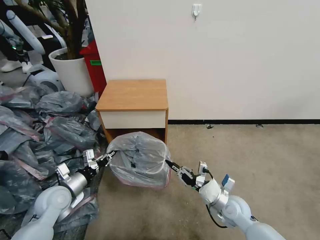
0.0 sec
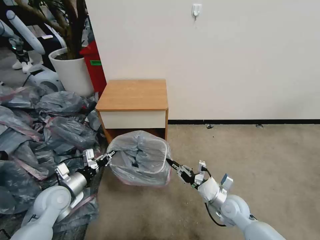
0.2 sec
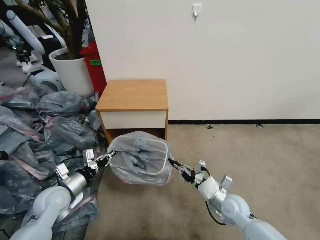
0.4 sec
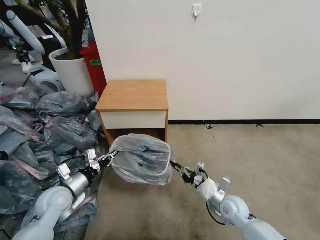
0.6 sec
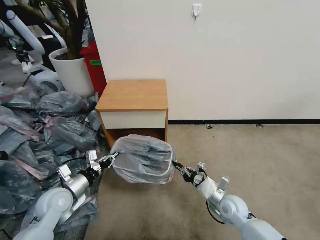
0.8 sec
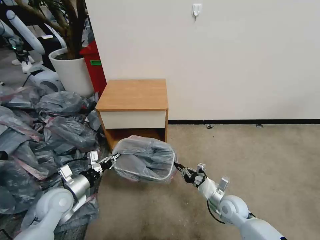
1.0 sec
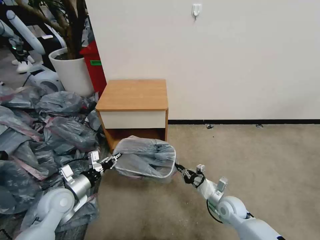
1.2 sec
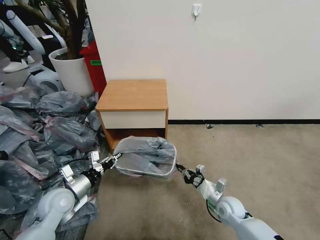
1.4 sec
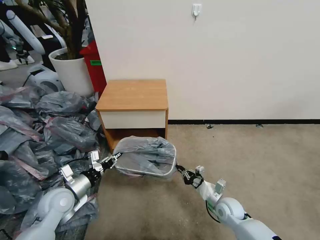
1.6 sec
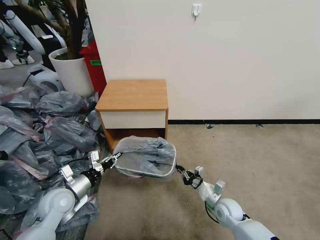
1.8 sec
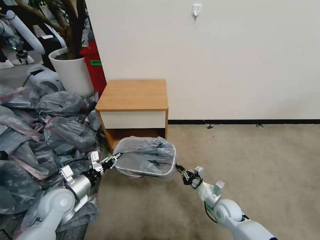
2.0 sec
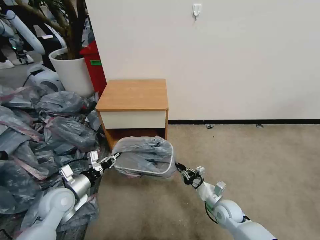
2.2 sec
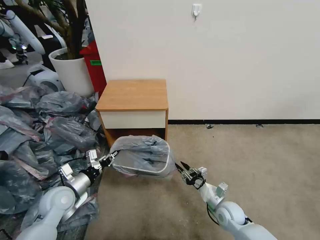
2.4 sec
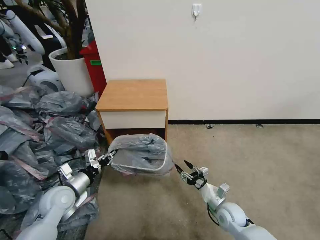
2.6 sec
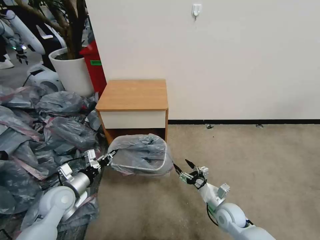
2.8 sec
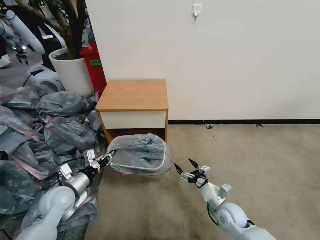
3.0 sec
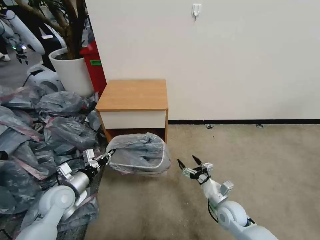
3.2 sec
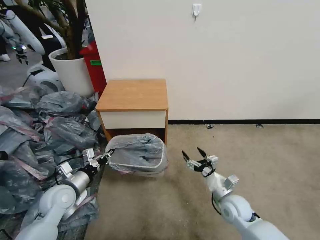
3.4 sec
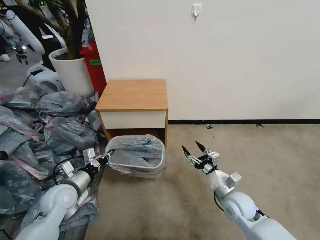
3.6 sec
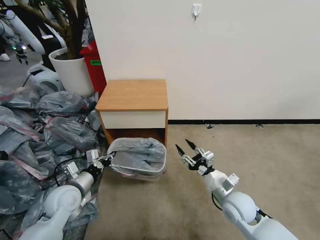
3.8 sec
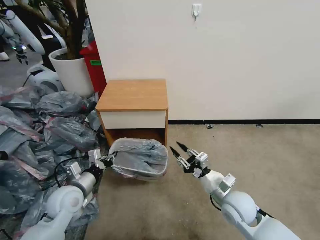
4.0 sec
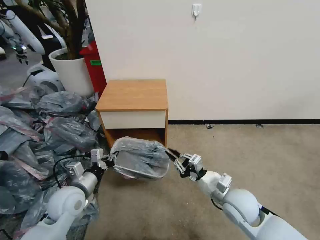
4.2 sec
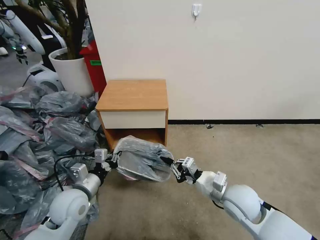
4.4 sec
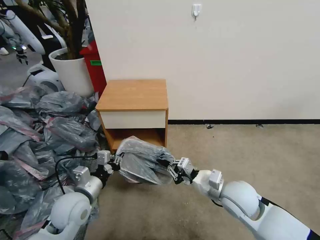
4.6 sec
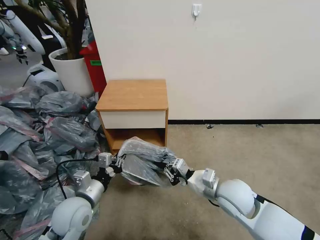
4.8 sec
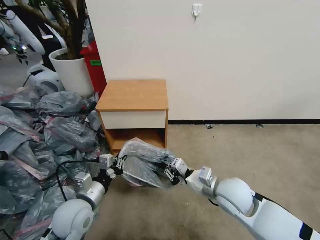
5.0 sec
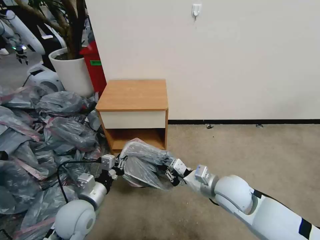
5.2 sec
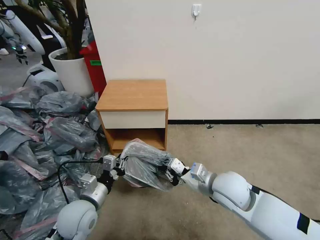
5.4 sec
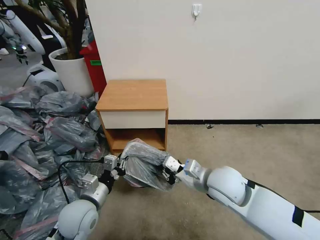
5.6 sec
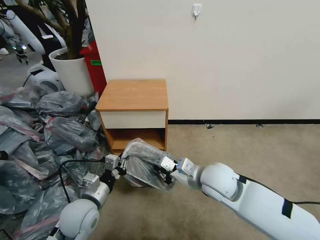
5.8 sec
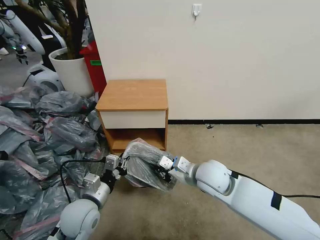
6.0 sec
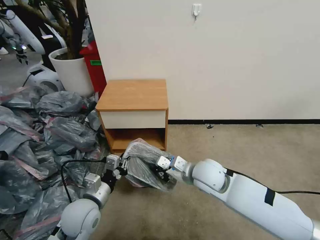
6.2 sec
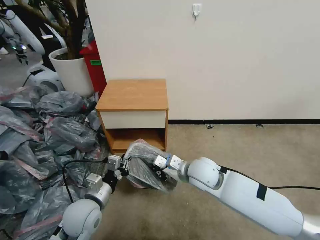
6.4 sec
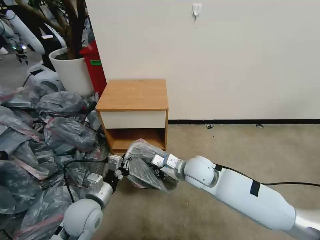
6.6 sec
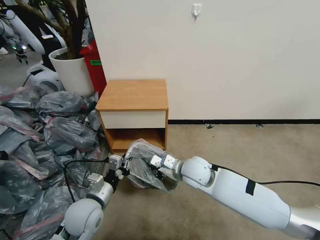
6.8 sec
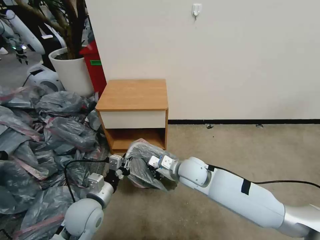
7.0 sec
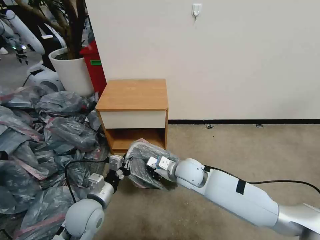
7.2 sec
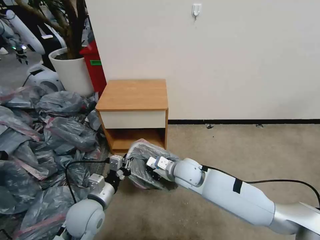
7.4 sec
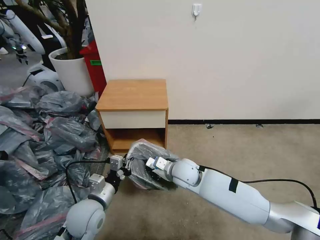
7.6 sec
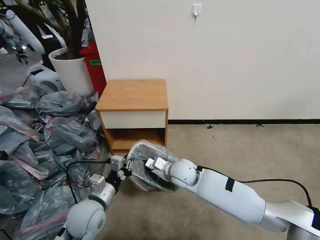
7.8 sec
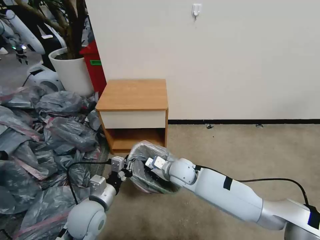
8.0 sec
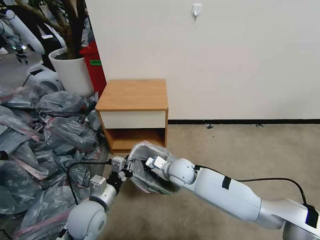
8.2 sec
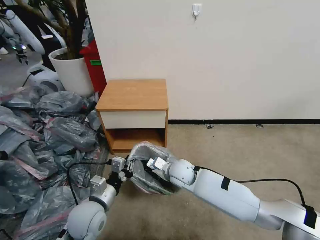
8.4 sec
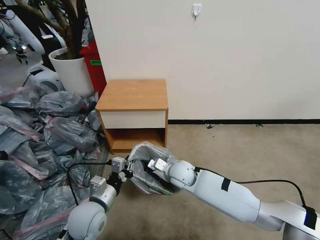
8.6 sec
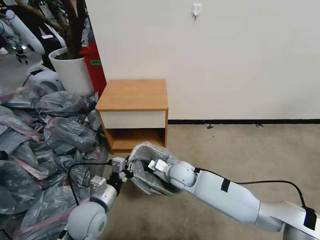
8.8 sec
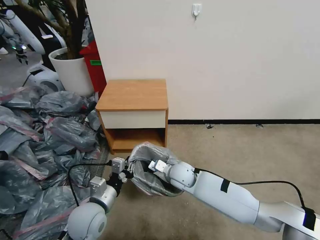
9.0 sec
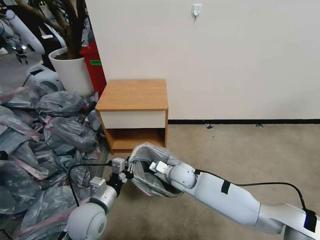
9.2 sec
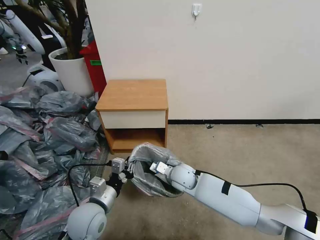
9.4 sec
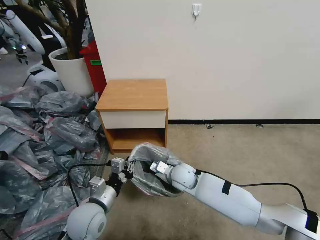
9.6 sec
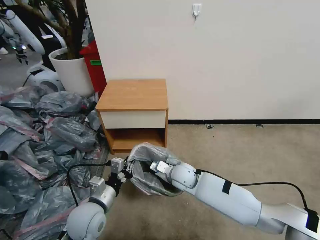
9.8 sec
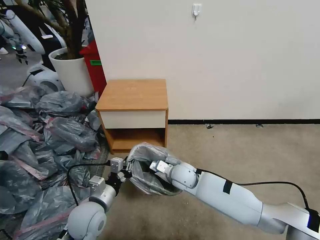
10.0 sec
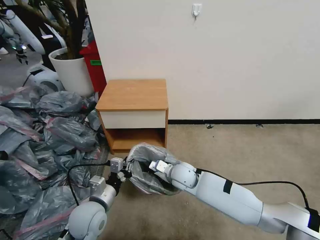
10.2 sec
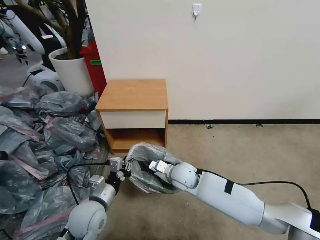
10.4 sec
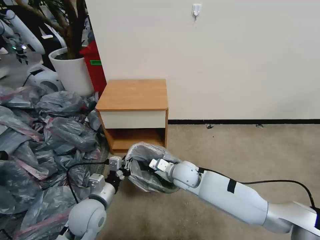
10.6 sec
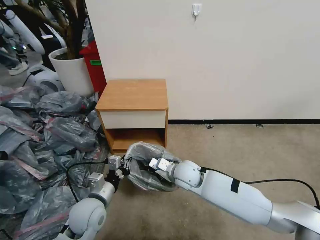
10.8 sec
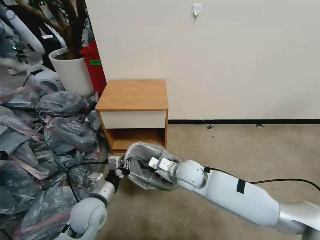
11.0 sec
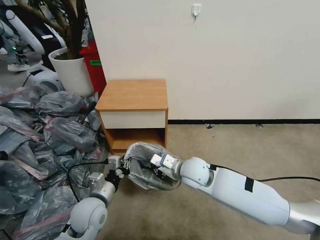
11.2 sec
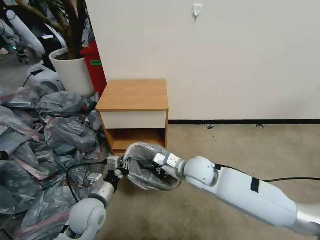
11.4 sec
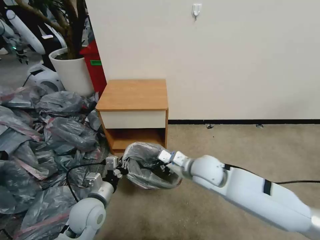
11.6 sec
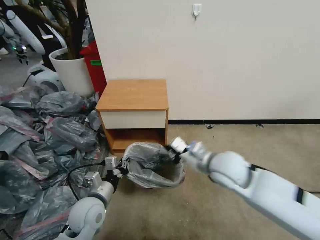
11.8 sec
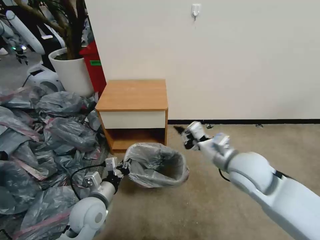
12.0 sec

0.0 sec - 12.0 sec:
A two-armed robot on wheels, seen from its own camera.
Task of the whole recording: Pick up the garbage bag from the table and place it over the trash can.
0.0 sec - 1.6 sec: The right gripper travels downward by approximately 5 cm.
1.6 sec - 3.0 sec: The right gripper opens up.
3.0 sec - 4.4 sec: The right gripper moves upward, about 15 cm, and closes its fingers, while the left gripper goes about 5 cm to the right.
4.4 sec - 6.0 sec: The right gripper goes some 10 cm to the left and forward.
6.0 sec - 7.6 sec: The right gripper heads downward and to the left, covering about 10 cm.
7.6 sec - 9.0 sec: There are only small adjustments of the grippers.
9.0 sec - 10.4 sec: The two grippers keep their place.
10.4 sec - 12.0 sec: The right gripper is displaced upward and to the right by about 20 cm.

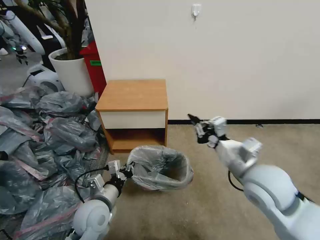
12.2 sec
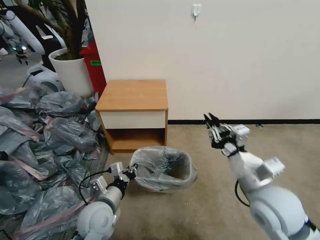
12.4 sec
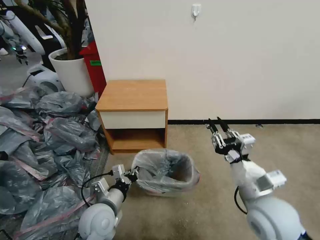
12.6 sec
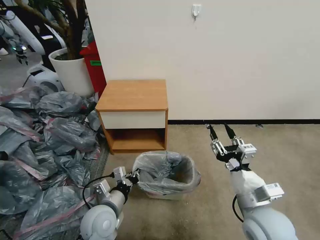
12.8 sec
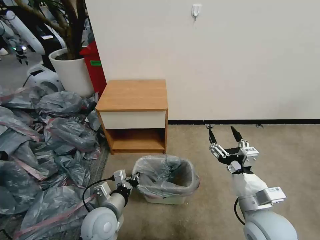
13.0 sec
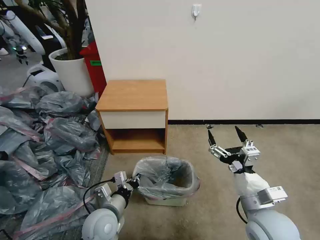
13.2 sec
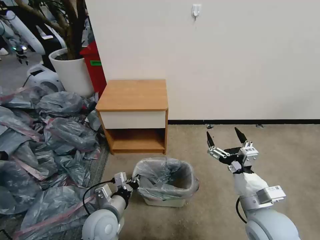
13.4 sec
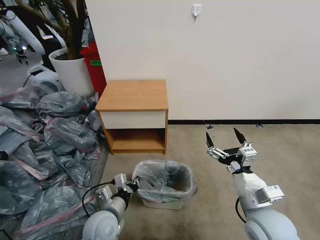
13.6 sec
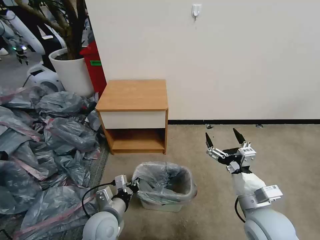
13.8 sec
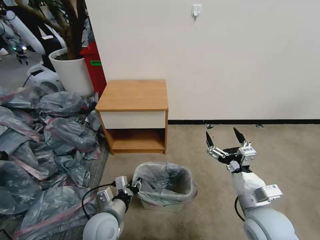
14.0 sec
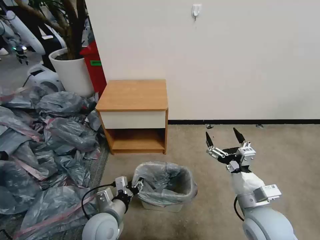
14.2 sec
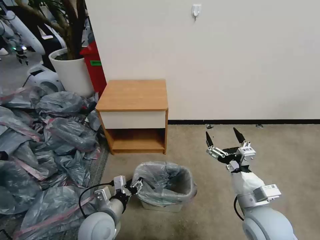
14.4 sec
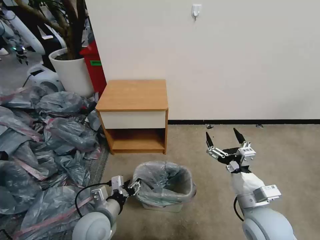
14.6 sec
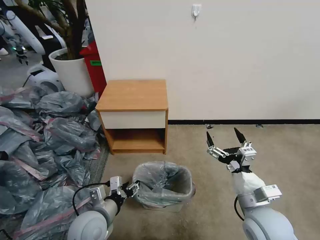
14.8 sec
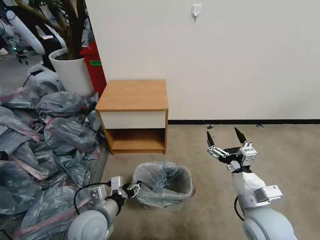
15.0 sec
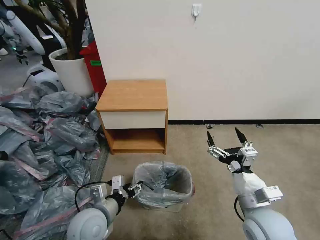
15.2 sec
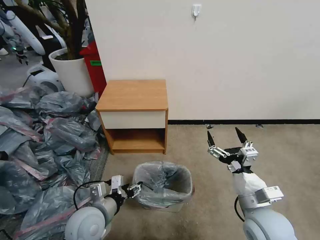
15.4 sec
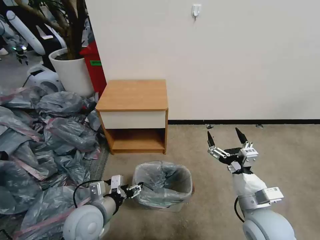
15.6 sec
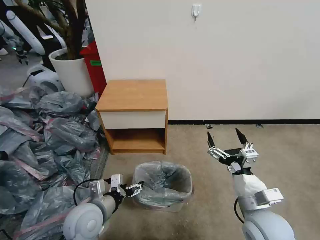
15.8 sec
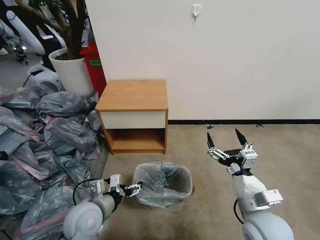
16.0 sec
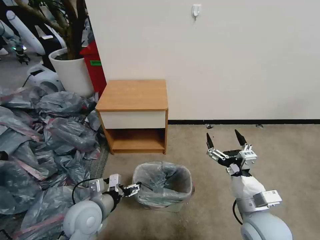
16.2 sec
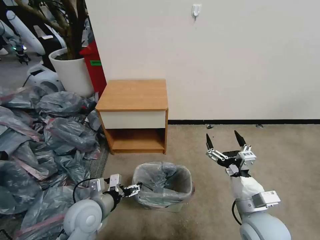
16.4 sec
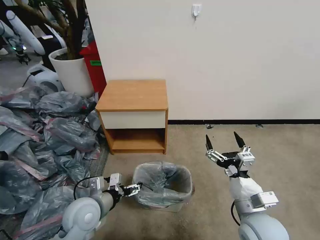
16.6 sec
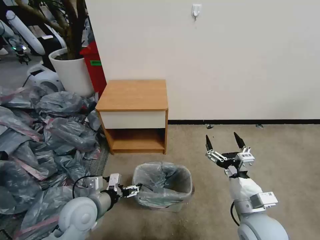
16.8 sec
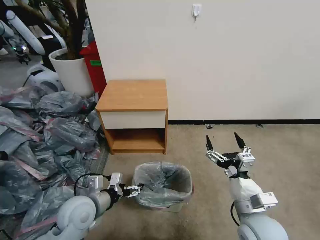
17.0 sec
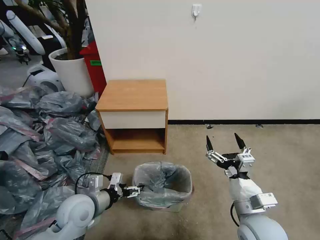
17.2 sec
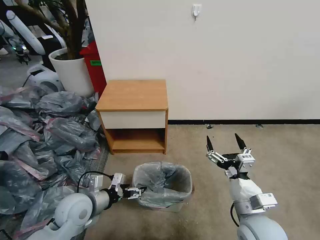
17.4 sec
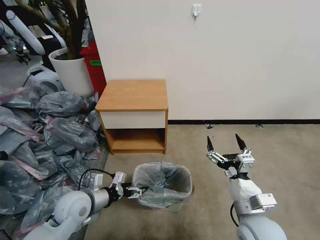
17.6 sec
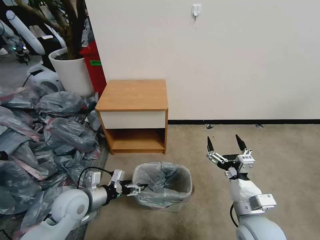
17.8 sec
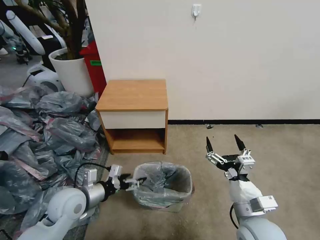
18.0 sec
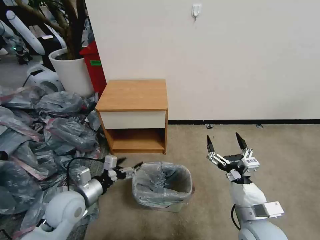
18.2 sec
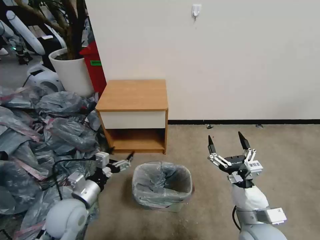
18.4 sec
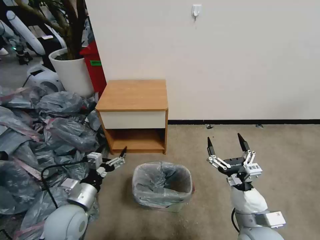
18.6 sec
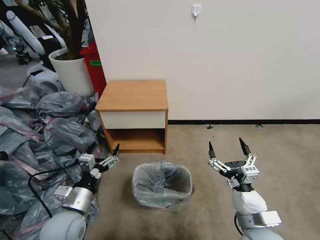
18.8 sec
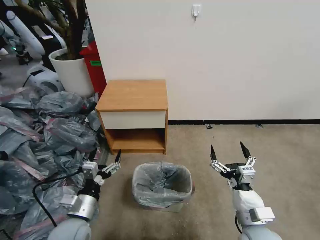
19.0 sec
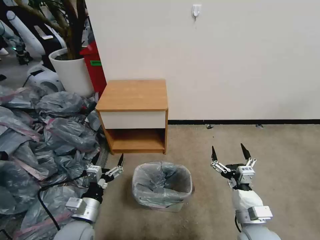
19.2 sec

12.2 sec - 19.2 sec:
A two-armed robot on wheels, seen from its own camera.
Task of the whole recording: Pick up the garbage bag from the table and place it over the trash can.
12.2 sec - 13.6 sec: The right gripper moves downward and backward, about 10 cm, and opens up.
13.6 sec - 15.0 sec: The left gripper opens up.
15.0 sec - 16.4 sec: The left gripper opens up.
16.4 sec - 17.8 sec: The left gripper goes some 5 cm to the left.
17.8 sec - 19.2 sec: The left gripper moves backward, roughly 10 cm.

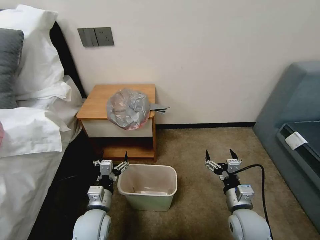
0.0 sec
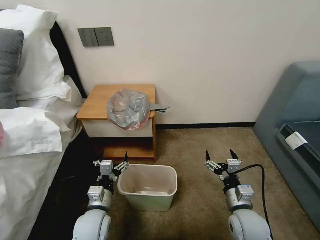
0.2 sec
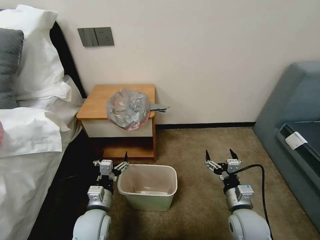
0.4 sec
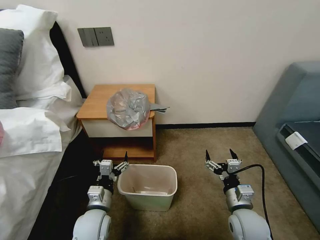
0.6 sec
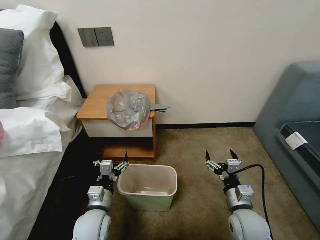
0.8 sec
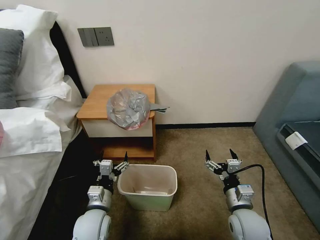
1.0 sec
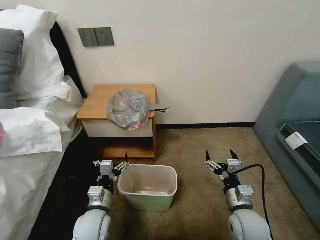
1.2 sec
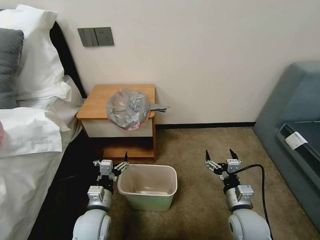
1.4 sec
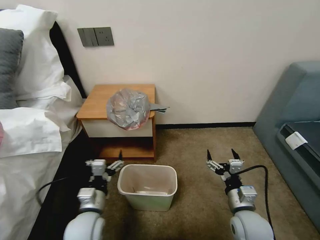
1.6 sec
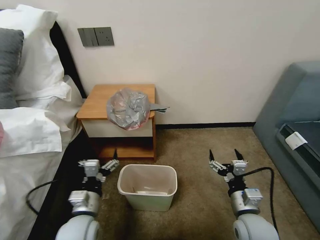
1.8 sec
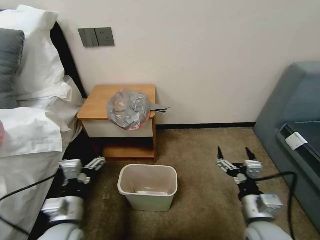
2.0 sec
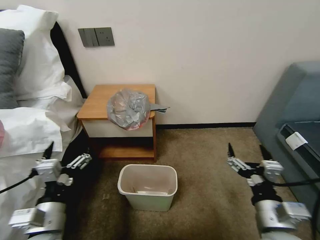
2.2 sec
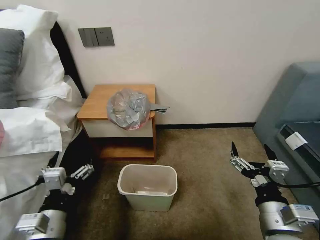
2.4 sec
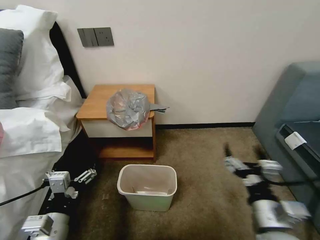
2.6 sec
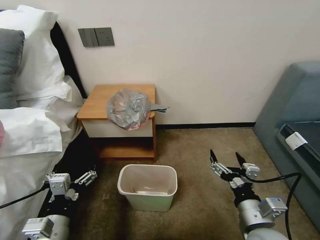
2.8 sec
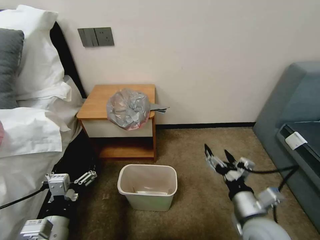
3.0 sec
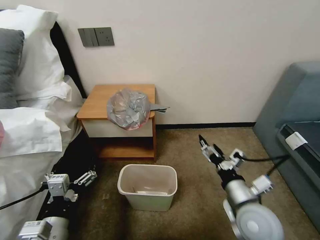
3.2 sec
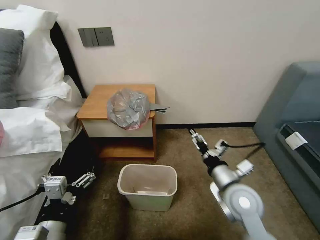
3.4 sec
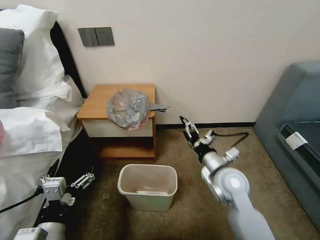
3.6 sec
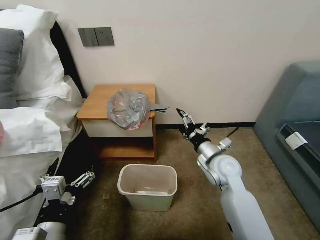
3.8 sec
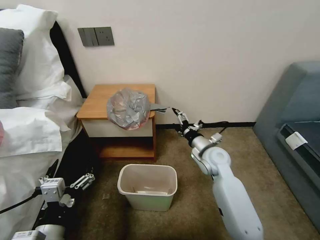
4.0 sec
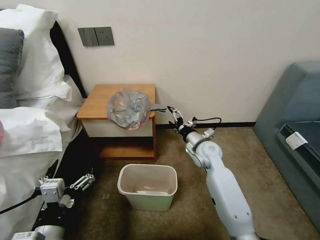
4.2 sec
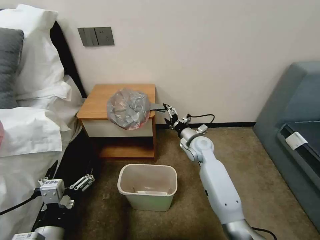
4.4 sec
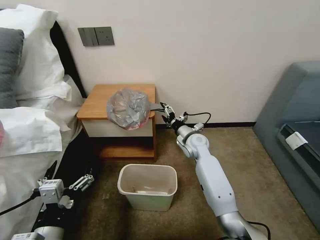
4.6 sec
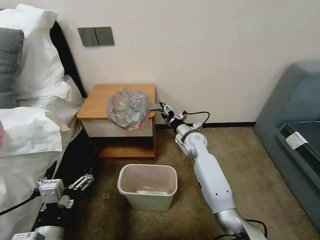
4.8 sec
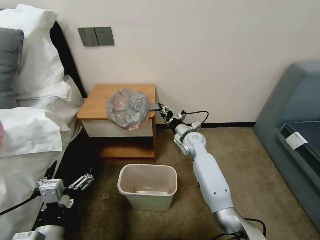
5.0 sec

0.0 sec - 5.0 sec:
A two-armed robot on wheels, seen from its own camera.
Task of the whole recording: Pick up the garbage bag from the table and place it over the trash can.
1.6 sec - 3.4 sec: The left gripper is displaced backward and upward by roughly 15 cm, while the right gripper moves upward, about 10 cm.
3.4 sec - 5.0 sec: The right gripper moves forward, about 25 cm, and closes its fingers.
